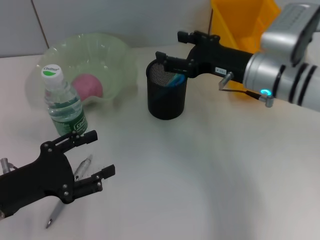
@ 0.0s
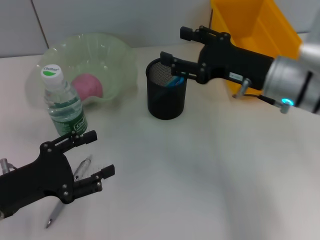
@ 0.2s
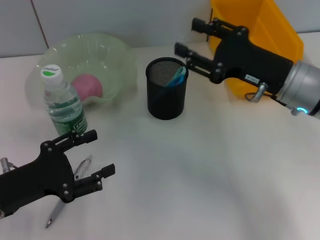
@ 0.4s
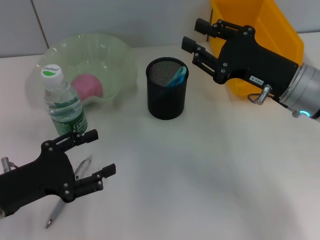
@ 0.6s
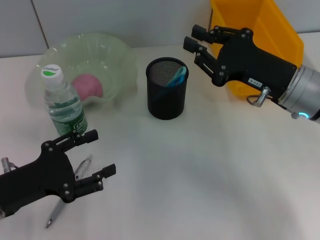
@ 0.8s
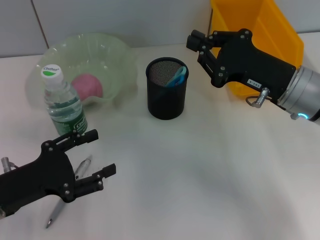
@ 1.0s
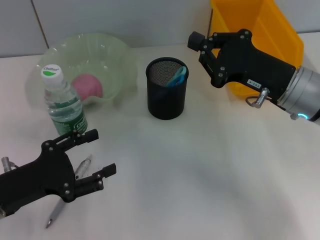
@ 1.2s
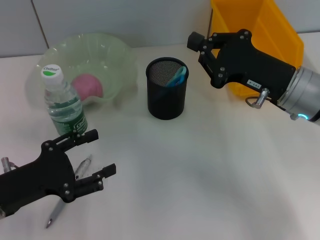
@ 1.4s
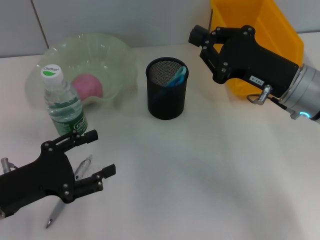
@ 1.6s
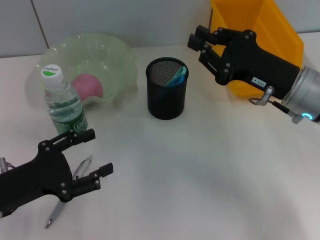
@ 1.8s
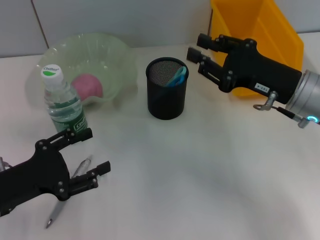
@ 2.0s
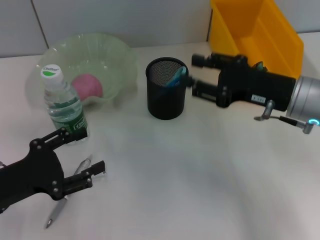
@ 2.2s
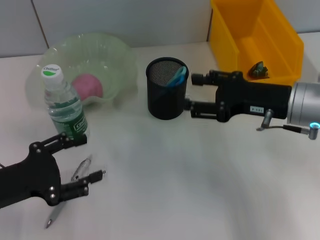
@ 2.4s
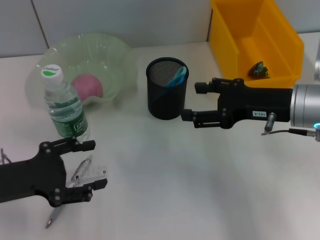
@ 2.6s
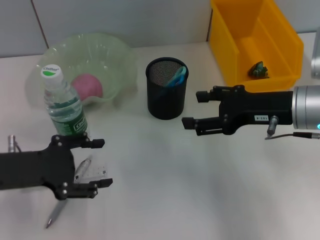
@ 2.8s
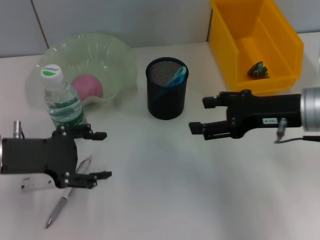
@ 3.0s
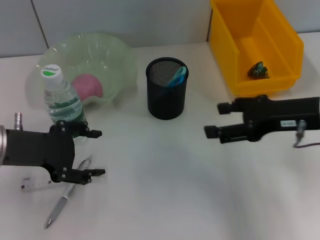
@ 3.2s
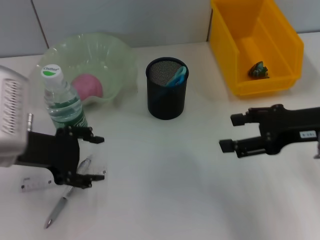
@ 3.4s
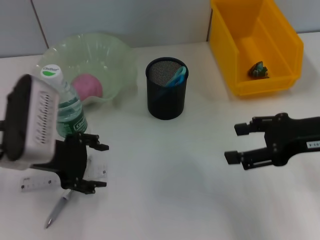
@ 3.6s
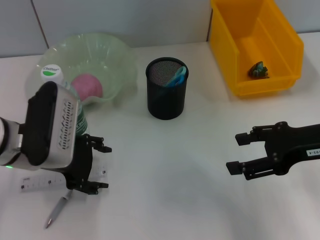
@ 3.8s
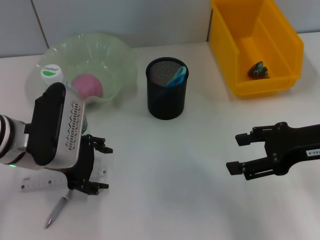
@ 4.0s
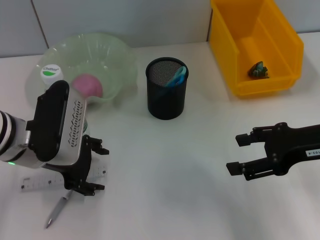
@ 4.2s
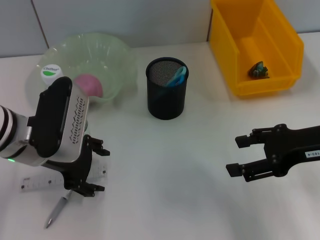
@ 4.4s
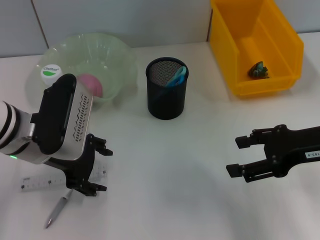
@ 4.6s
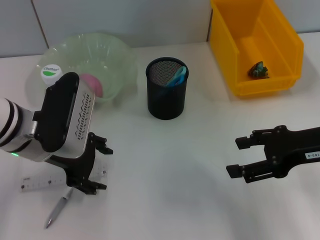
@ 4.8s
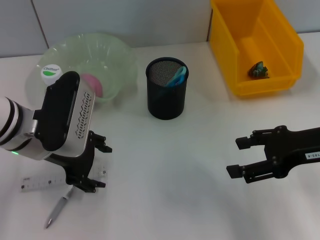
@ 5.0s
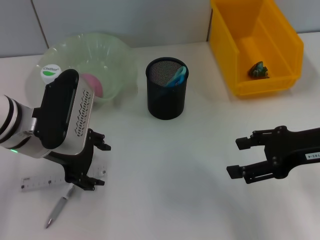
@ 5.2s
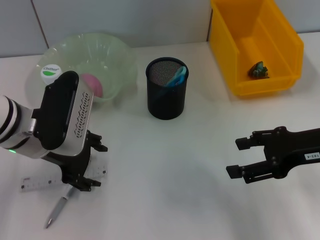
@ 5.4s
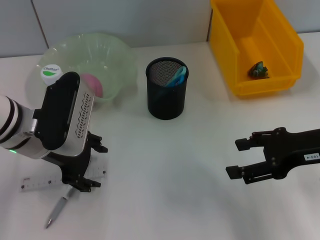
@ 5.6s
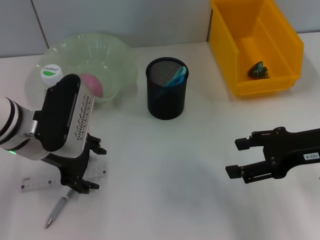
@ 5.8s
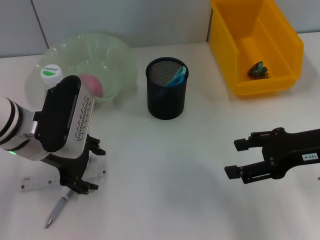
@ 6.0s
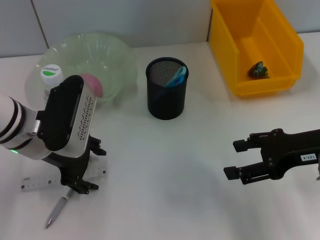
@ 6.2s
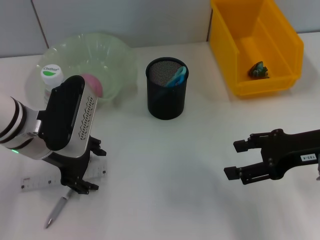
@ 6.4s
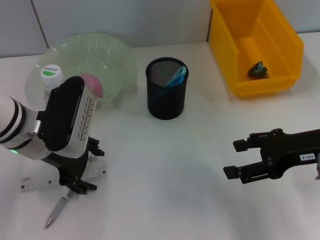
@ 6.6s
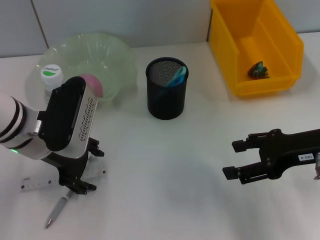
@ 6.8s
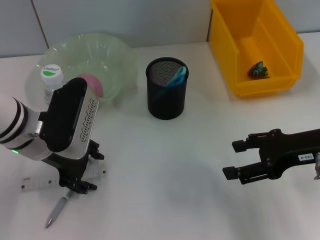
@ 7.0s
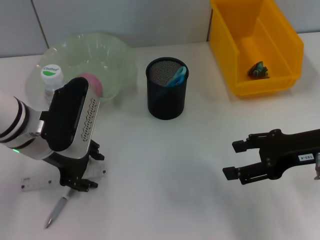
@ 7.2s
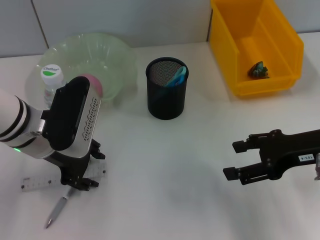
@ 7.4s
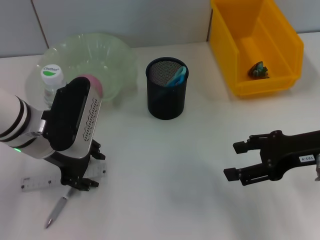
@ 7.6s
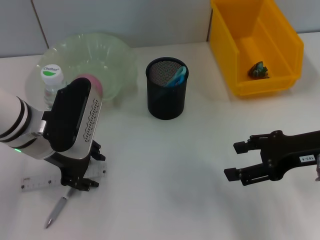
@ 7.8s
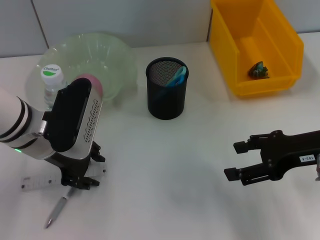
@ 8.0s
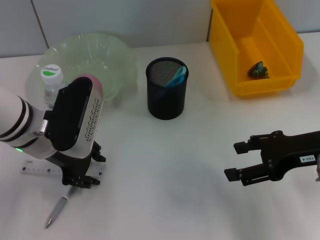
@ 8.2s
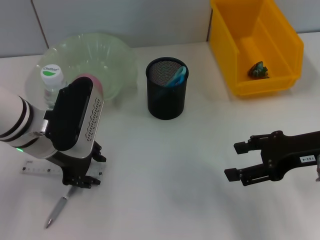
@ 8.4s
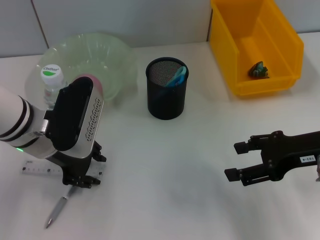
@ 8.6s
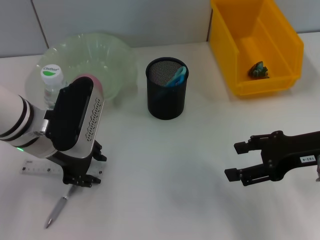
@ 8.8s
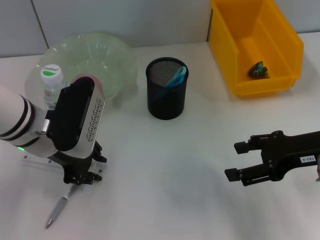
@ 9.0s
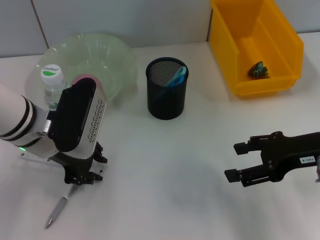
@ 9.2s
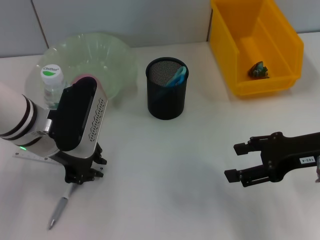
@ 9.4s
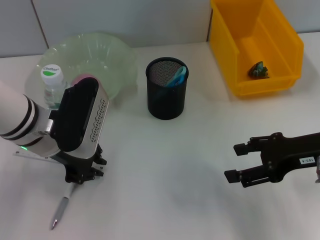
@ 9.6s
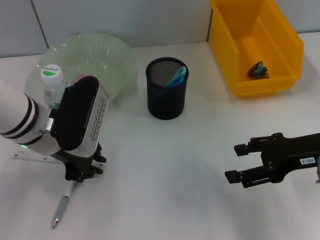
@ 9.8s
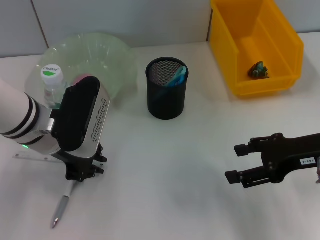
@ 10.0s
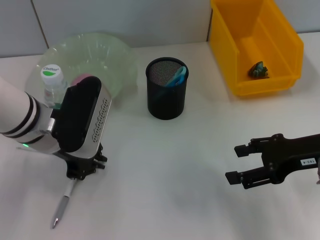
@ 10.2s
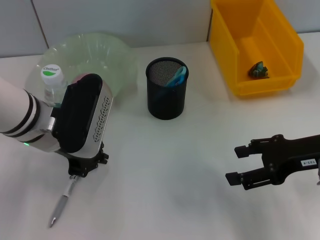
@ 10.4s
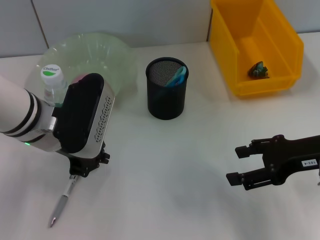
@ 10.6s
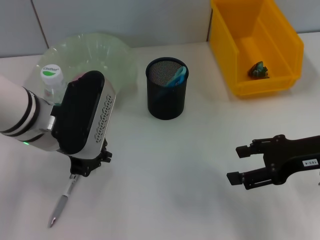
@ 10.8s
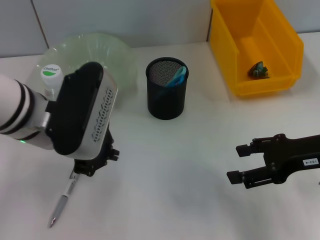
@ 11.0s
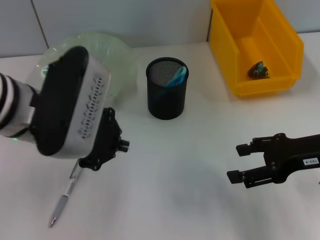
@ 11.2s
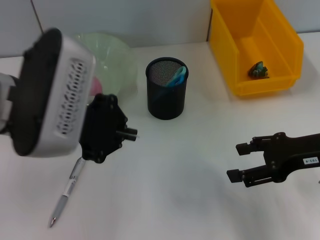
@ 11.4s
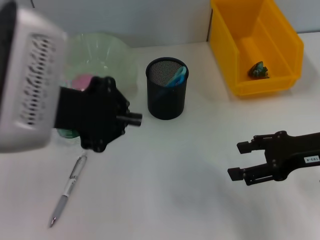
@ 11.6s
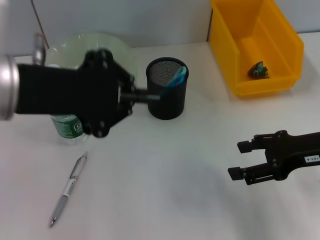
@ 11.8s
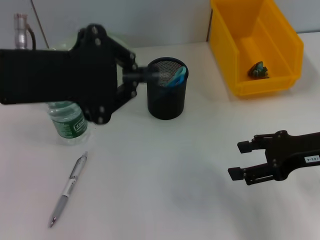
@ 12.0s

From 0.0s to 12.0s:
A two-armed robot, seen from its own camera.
Step, from 0.0s to 9.2s: Grab the ruler with the left hand.
From 0.0s to 1.6s: The right gripper goes about 5 cm backward, and closes its fingers.
From 1.6s to 3.0s: The right gripper opens its fingers, while the left gripper goes approximately 5 cm upward.
From 3.0s to 4.4s: The left gripper heads to the right, covering approximately 5 cm, while the right gripper changes place by roughly 5 cm.
From 4.4s to 6.0s: The two grippers keep their place.
From 6.0s to 9.0s: Both grippers stay about where they are.
From 9.0s to 10.4s: The left gripper closes its fingers.
From 10.4s to 12.0s: The left gripper shifts roughly 15 cm upward and backward.

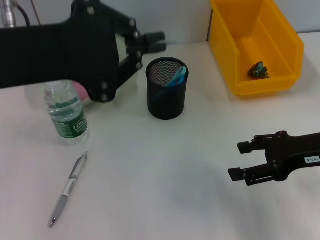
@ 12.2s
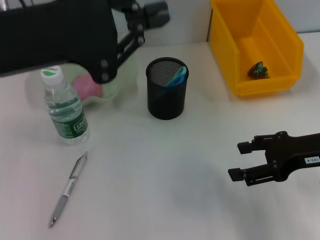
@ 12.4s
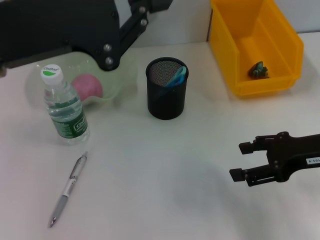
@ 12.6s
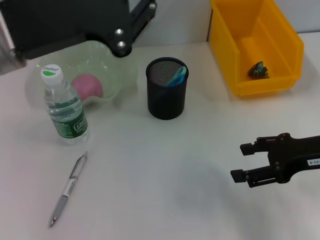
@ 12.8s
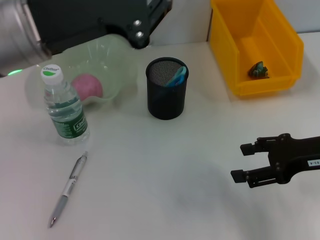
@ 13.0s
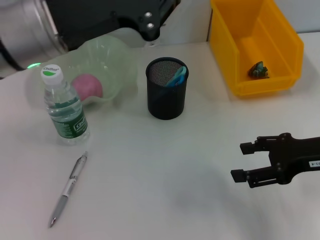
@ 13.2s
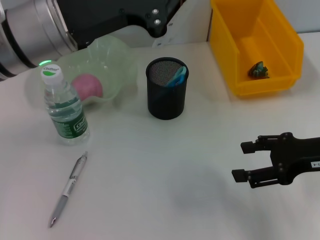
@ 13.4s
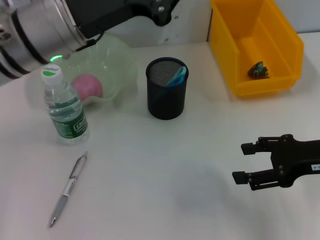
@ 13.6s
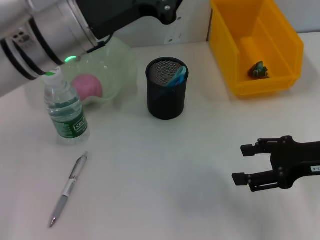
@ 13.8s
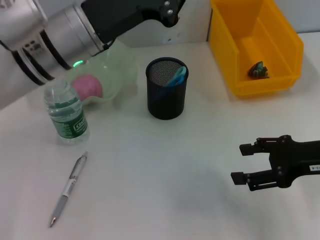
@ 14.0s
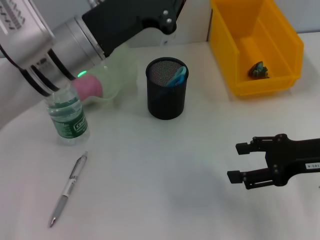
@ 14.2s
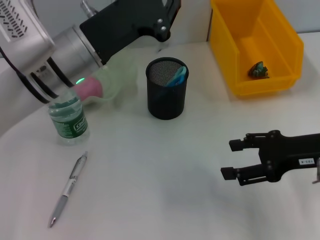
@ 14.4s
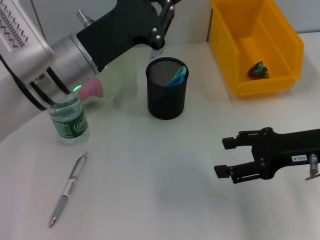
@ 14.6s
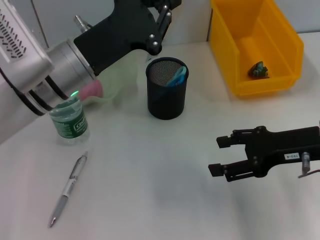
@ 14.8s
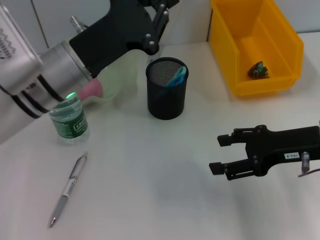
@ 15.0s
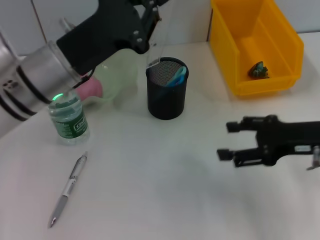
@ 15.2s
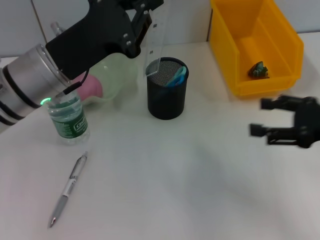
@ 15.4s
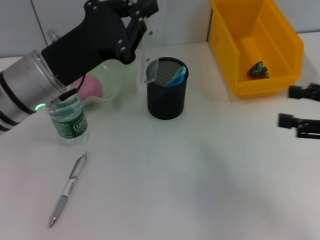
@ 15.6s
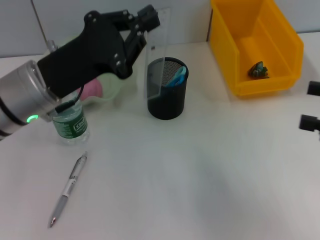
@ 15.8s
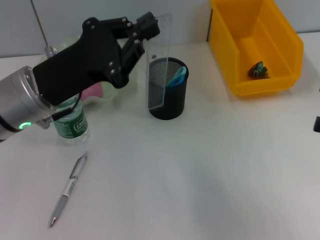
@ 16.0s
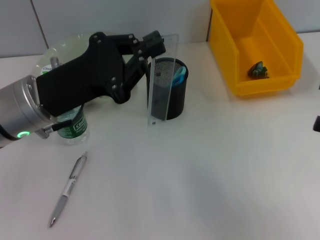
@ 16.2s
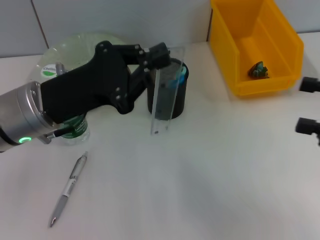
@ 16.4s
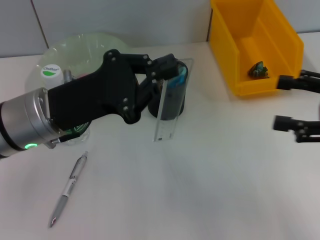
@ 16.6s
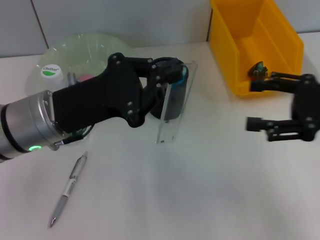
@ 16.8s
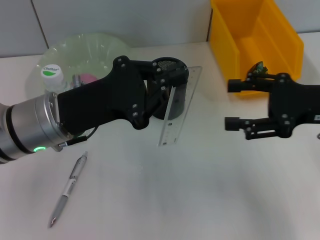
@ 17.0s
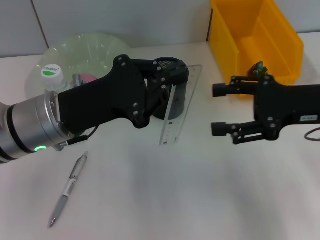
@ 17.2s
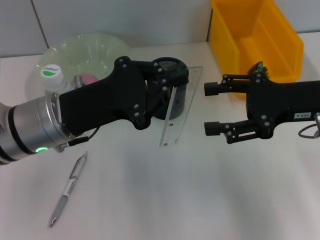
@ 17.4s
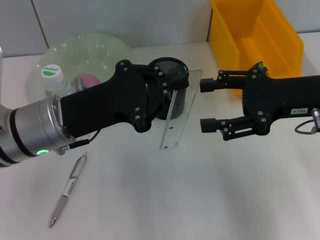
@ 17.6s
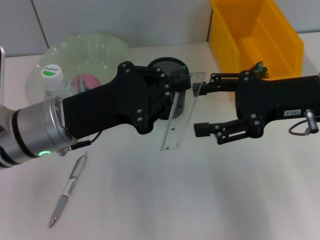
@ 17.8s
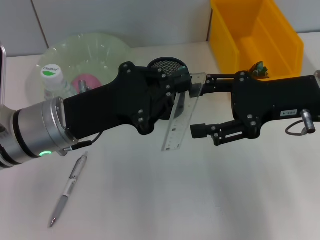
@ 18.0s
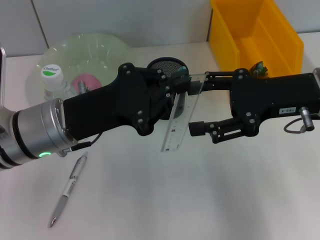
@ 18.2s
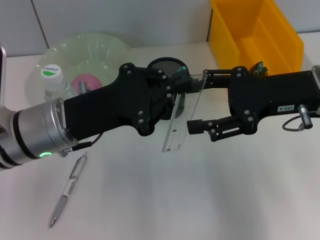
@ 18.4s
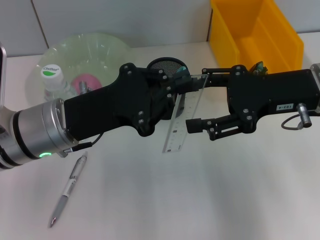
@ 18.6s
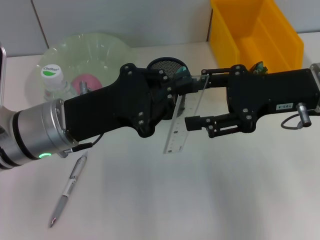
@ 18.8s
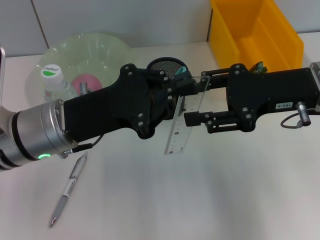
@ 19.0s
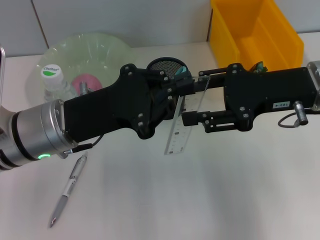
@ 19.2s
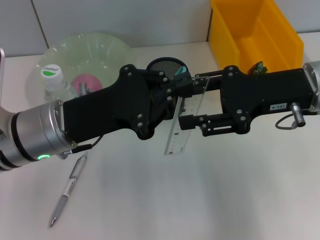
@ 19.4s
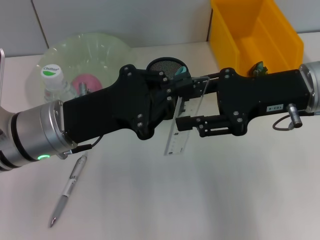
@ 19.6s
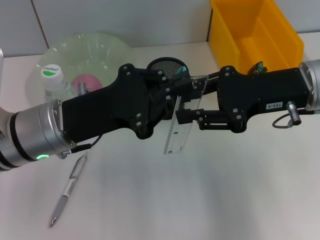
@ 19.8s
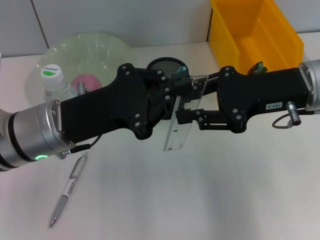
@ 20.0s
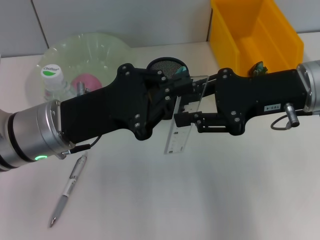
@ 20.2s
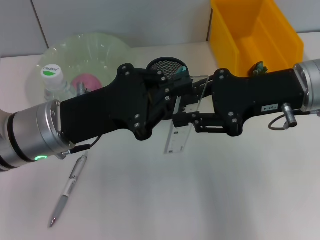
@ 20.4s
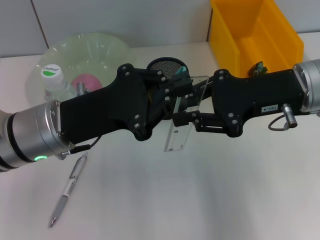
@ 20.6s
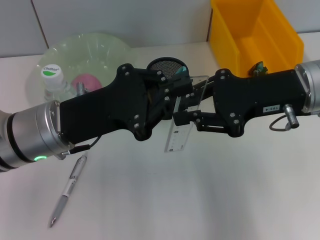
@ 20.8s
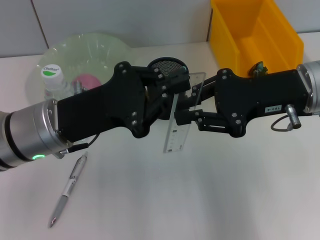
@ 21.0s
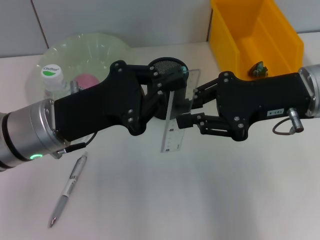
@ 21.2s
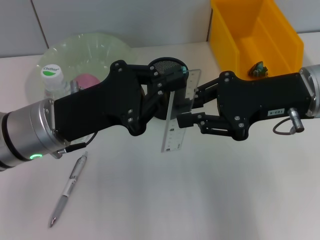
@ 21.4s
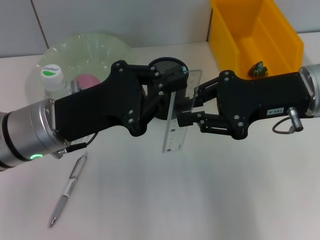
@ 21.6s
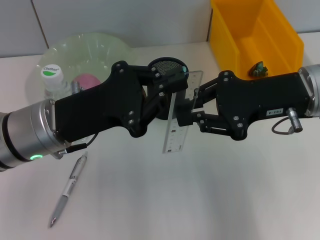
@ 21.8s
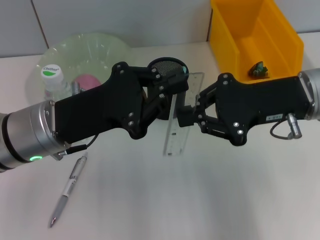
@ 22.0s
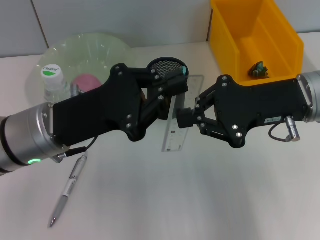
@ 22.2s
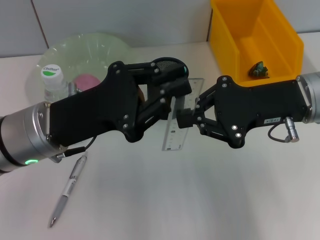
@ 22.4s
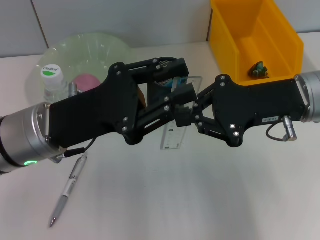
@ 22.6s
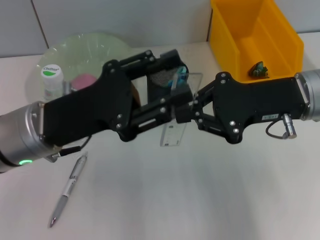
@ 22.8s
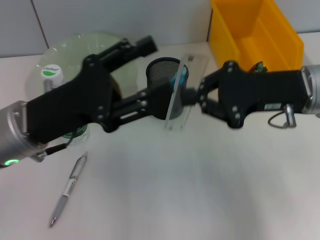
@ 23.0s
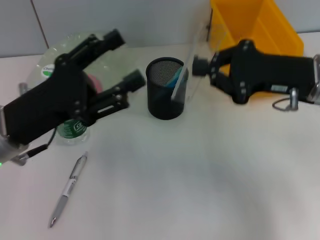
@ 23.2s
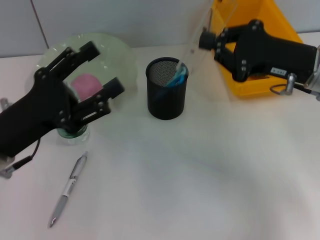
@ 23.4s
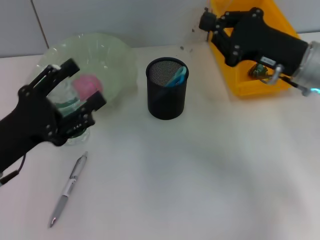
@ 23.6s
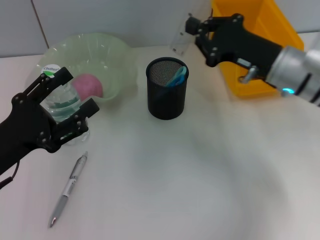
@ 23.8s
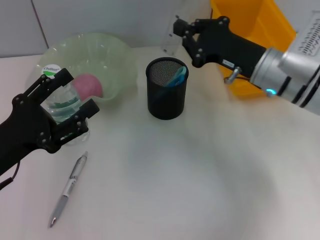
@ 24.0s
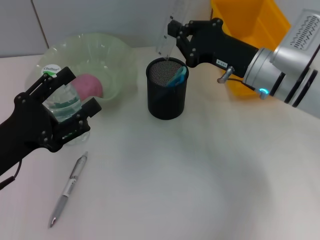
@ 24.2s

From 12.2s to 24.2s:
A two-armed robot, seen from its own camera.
Step, from 12.2s to 22.6s: Pass the ruler from the left hand to the right hand.
From 12.2s to 13.8s: The left gripper is displaced forward, downward and to the right by about 15 cm.
From 13.8s to 15.2s: The left gripper goes some 5 cm downward.
From 15.2s to 16.6s: The left gripper shifts by about 5 cm; the right gripper shifts roughly 5 cm to the right.
From 16.6s to 18.2s: The right gripper travels to the left and forward by roughly 10 cm.
From 18.2s to 19.8s: The right gripper closes up.
From 19.8s to 21.2s: Both grippers stay about where they are.
From 21.2s to 22.6s: There are only small adjustments of the grippers.
From 22.6s to 24.2s: The left gripper travels to the left and downward by approximately 10 cm, and opens up. The right gripper heads forward and downward, covering approximately 10 cm.
